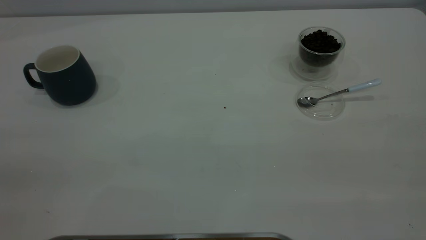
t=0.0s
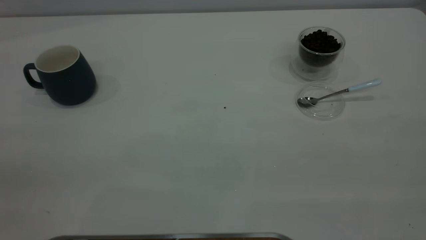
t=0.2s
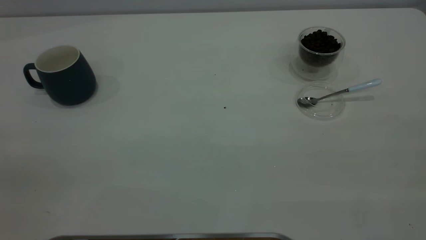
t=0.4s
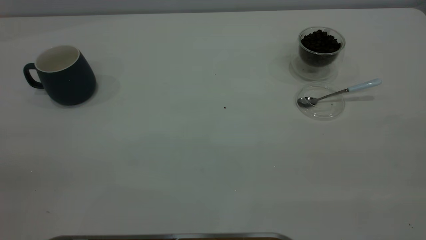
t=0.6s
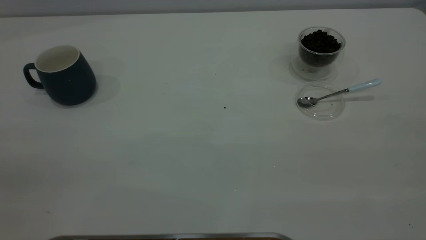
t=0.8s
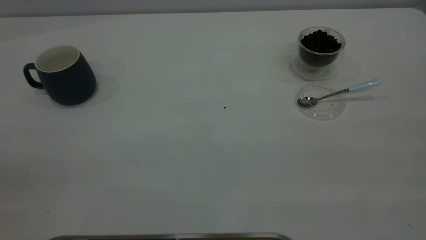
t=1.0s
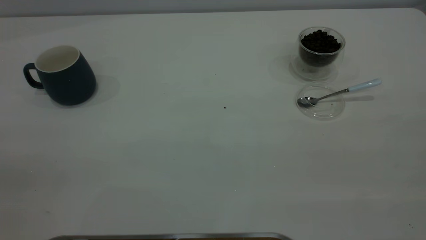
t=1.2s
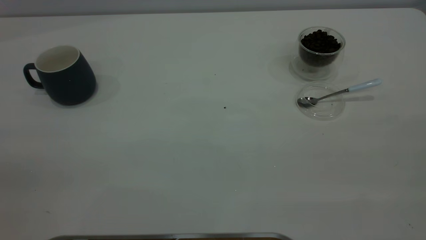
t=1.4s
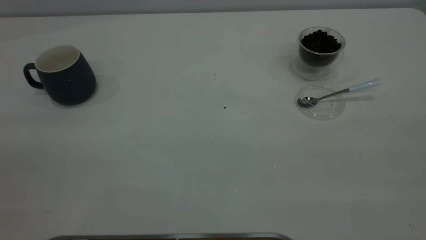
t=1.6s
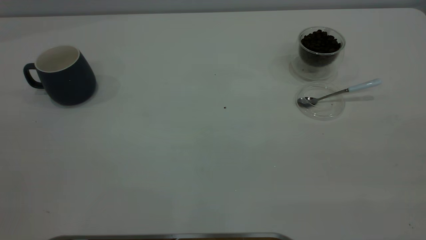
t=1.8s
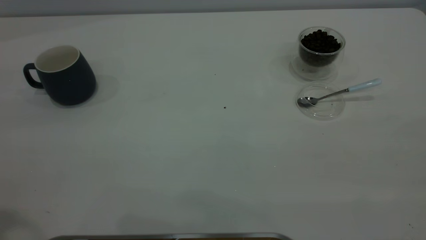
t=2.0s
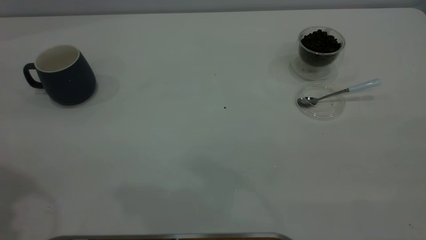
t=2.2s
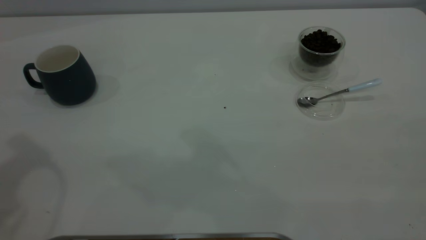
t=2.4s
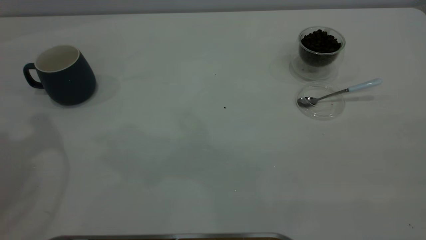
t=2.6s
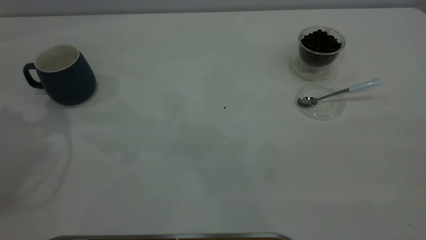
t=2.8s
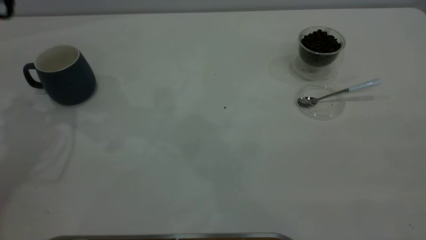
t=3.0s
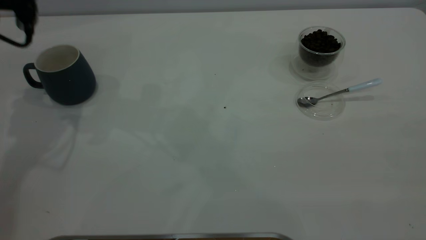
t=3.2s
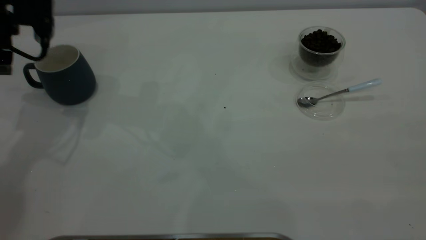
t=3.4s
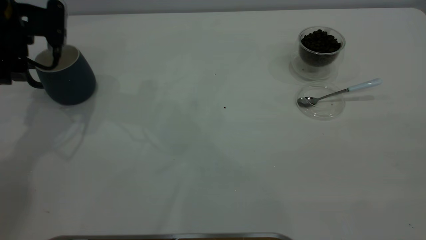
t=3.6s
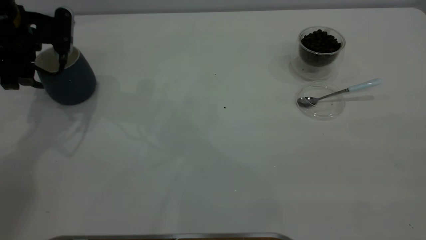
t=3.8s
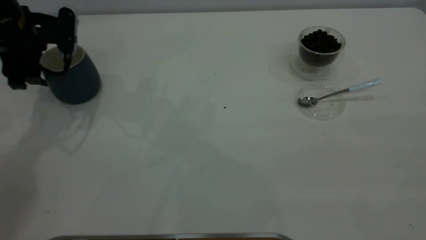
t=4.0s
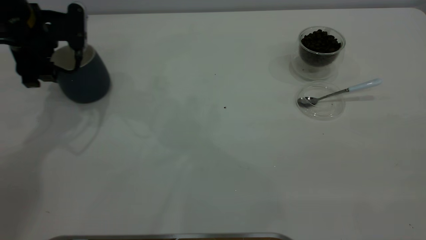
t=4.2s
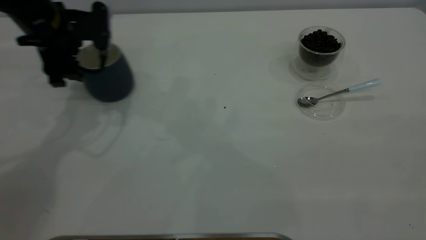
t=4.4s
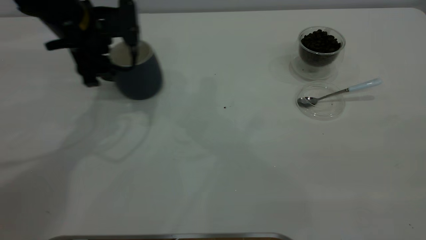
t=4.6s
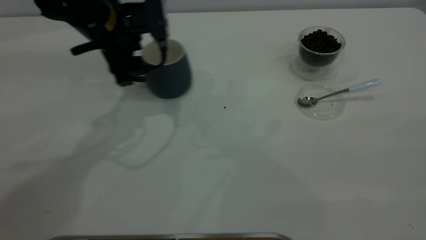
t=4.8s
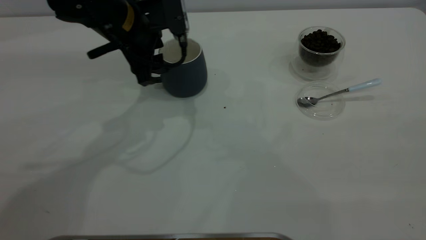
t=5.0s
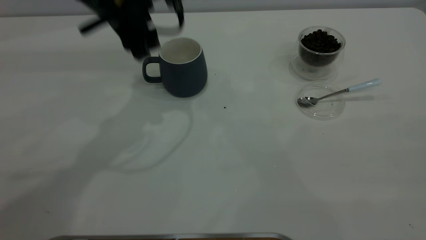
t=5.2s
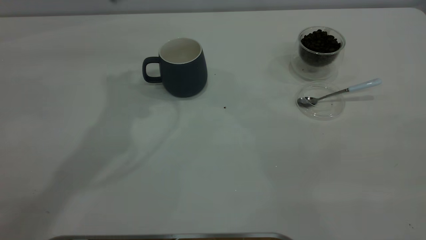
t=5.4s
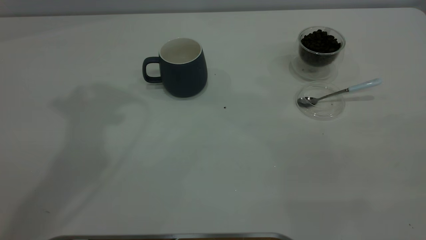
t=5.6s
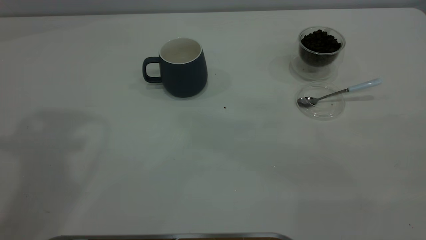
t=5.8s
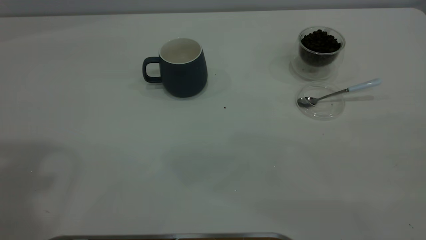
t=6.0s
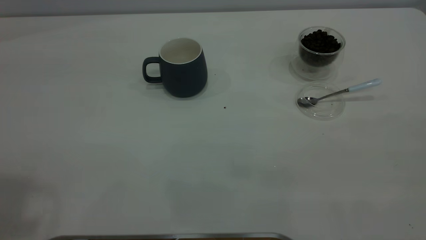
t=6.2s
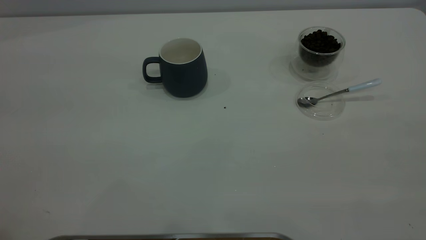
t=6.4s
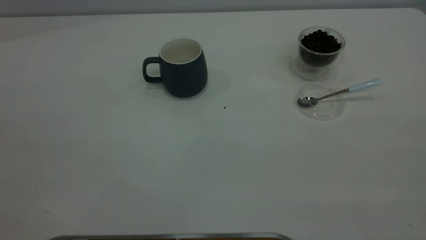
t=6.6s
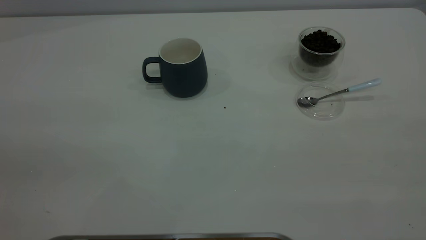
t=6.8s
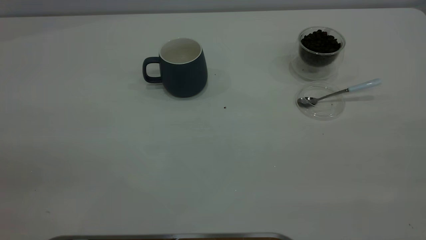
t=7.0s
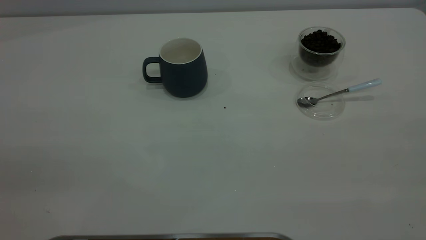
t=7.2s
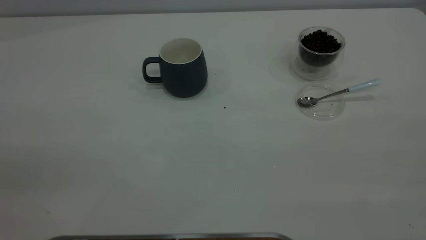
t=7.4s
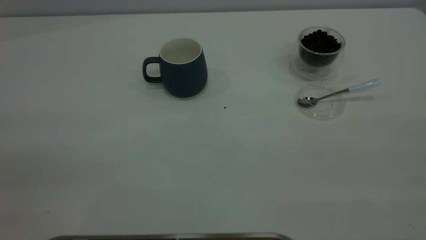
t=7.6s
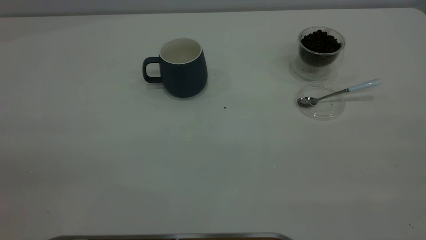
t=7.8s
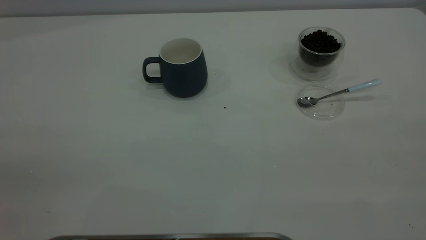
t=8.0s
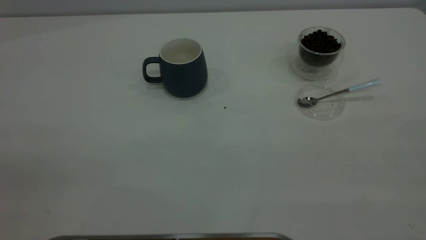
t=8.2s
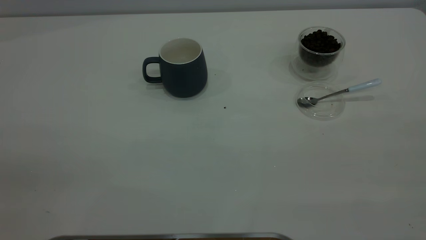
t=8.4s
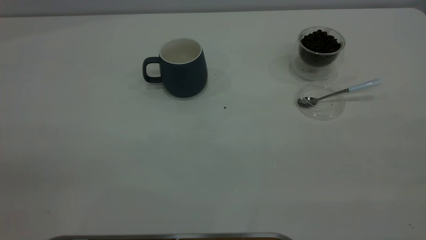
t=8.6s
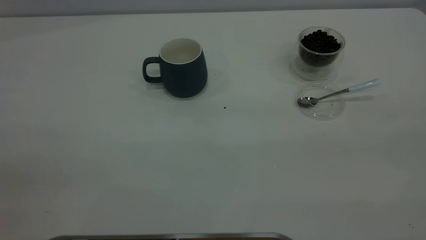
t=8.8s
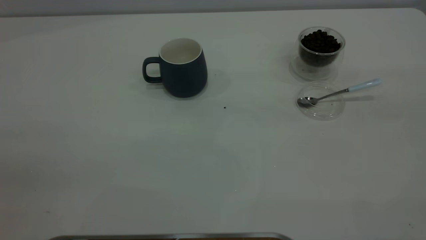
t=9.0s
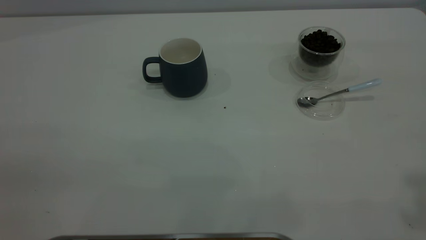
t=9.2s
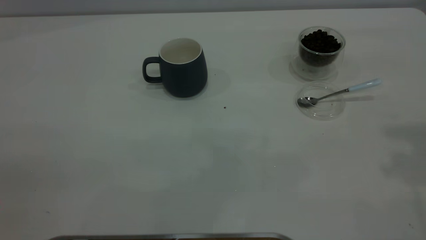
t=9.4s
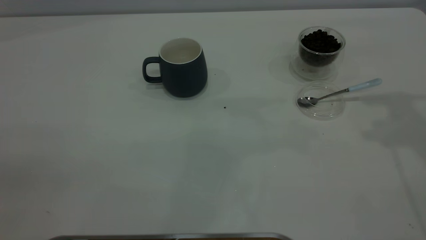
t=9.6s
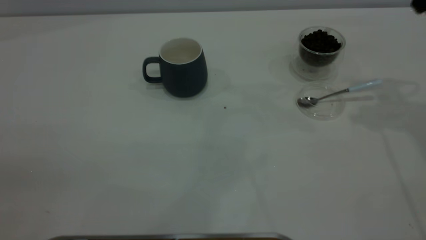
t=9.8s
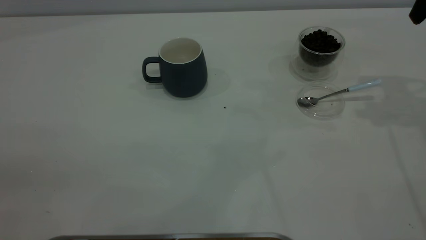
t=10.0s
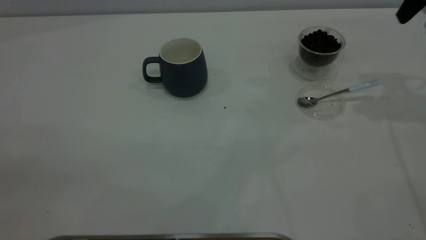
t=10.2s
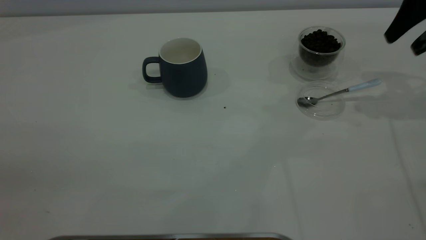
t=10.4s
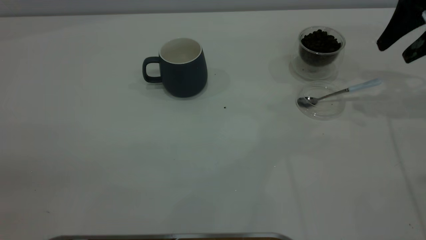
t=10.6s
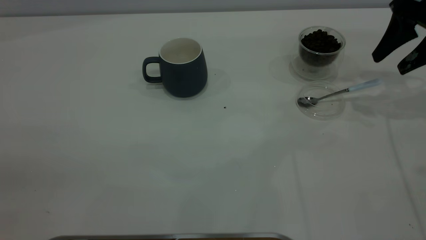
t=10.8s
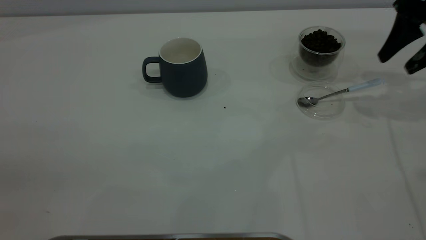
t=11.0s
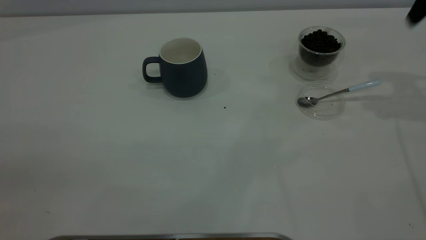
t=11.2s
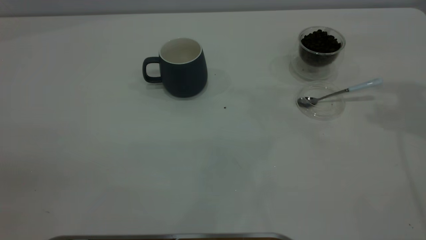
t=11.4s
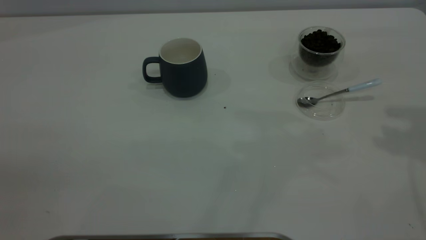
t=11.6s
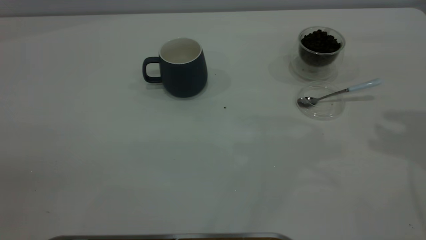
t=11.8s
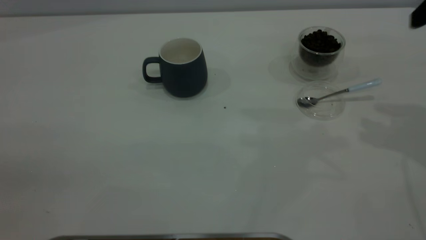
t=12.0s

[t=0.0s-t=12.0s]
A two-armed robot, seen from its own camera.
Task of the whole recording: the left gripper place the grey cup in the center of the table, the right gripper take the blue spoon from the cup lid and scoop out the coffee beans from the coffee cup and put them into the grey cup, the right gripper put the spoon back into the cup lid.
Step, t=0.0s to t=5.2s: Move the cup to the center of view.
t=3.0s to t=4.4s: The left gripper travels downward and to the right by roughly 15 cm.
t=4.4s to t=6.0s: The left gripper shifts approximately 35 cm upward and backward.
t=9.0s to t=10.4s: The right gripper shifts approximately 35 cm forward and downward.
t=10.4s to t=12.0s: The right gripper moves backward, about 10 cm, and travels upward and back again, some 10 cm each way.

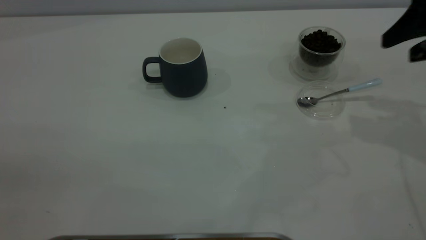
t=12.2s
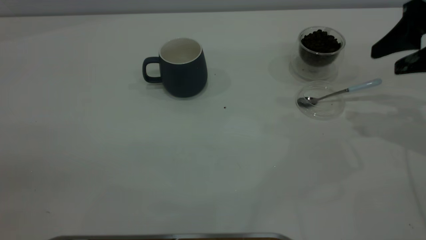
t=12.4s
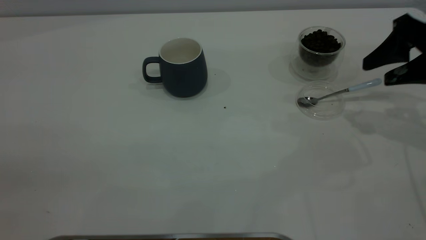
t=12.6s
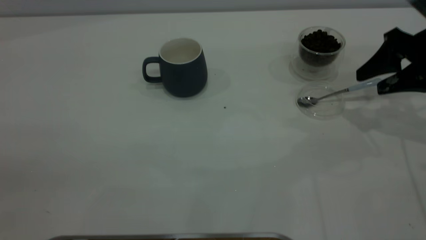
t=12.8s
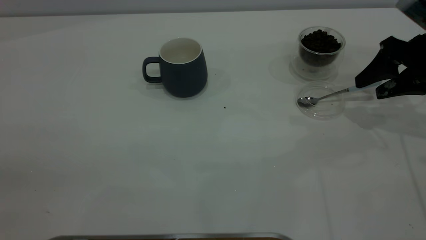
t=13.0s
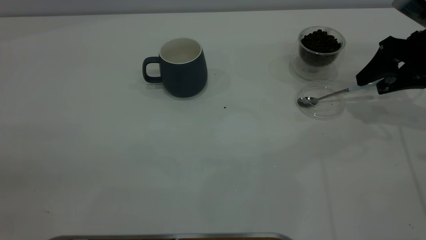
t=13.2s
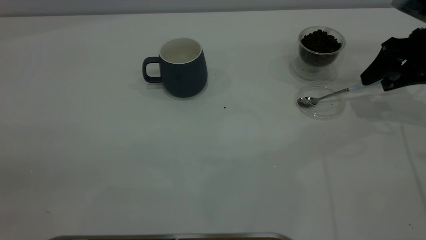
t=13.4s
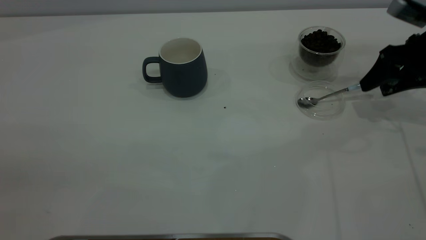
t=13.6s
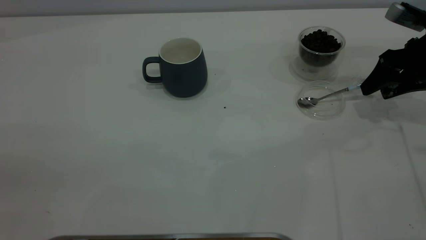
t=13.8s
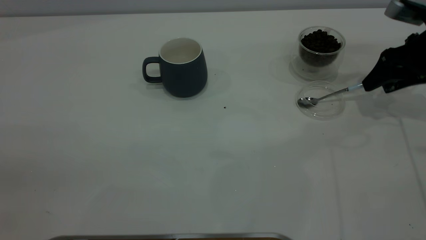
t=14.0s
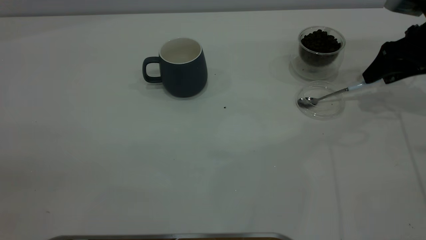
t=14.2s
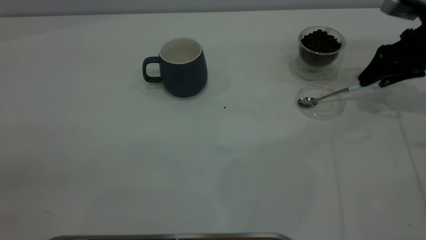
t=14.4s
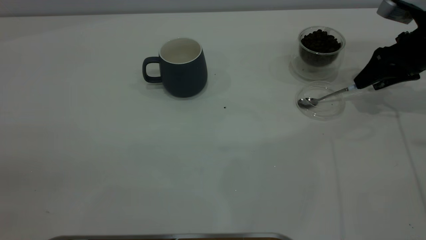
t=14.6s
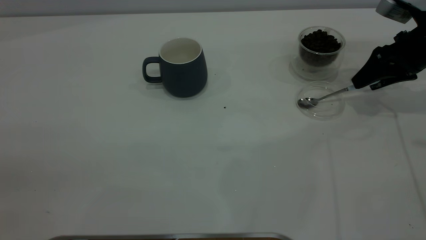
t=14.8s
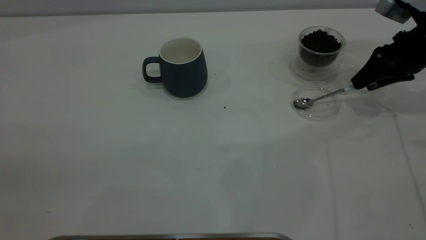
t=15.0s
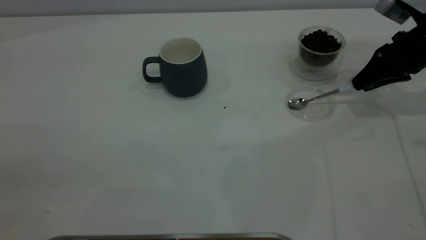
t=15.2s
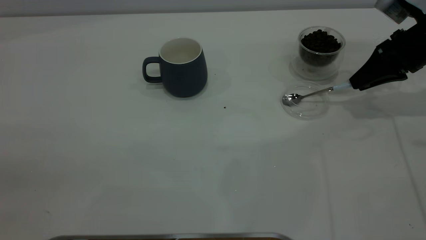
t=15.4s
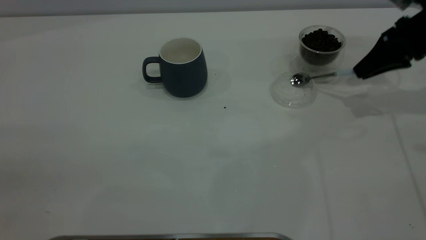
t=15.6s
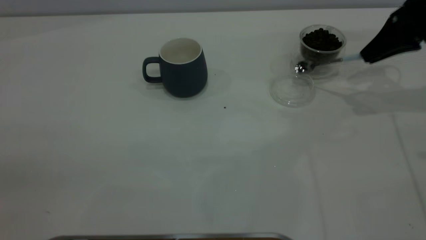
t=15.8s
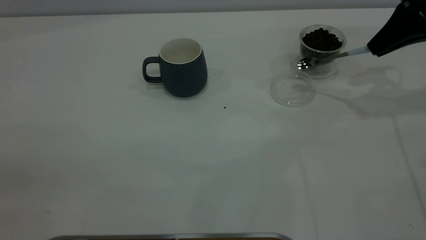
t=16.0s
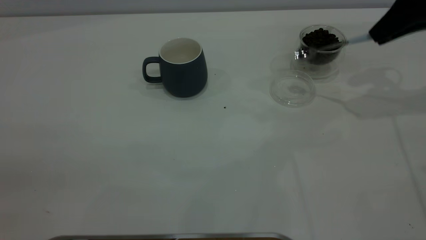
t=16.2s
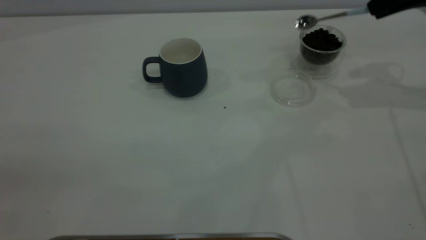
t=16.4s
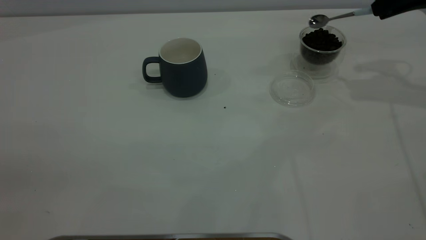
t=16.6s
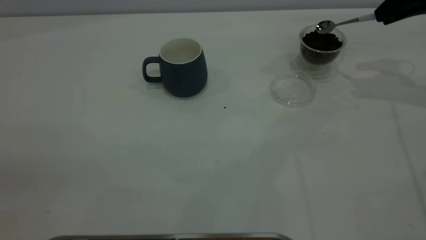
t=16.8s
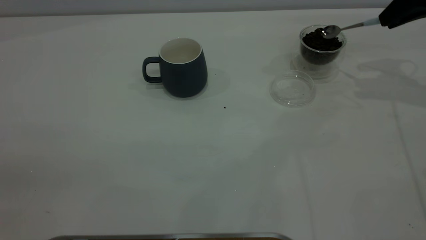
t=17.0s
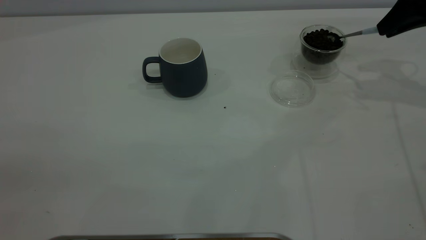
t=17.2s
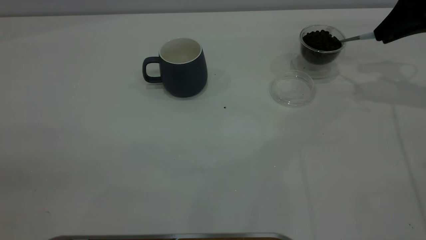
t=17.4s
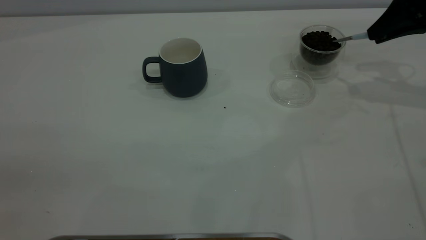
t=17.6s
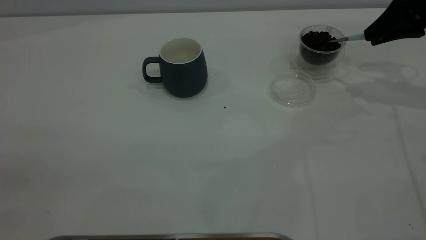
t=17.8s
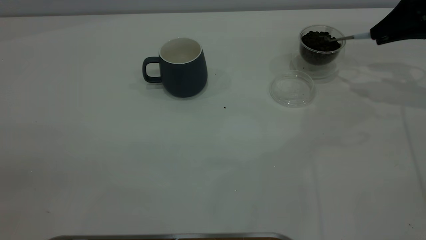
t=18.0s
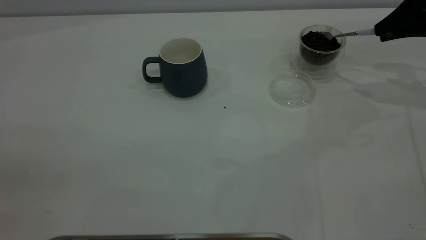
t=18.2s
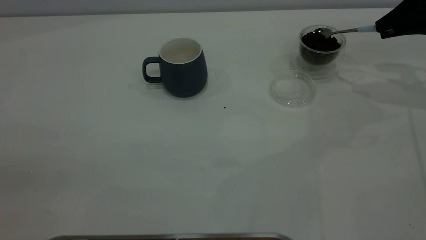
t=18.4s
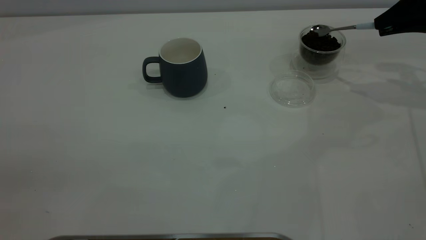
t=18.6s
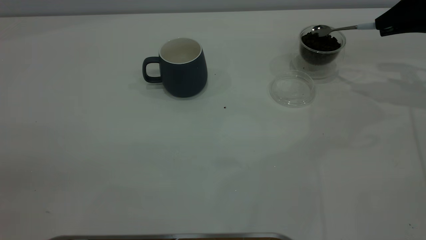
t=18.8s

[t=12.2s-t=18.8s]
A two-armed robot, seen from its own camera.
Task of the whole recording: the left gripper place the grey cup in the center of the table, the right gripper take the blue spoon from the cup lid and scoop out the coffee beans from the coffee cup and put them into the grey cup, the right gripper put the spoon back into the cup lid.
Step, t=12.2s to t=15.8s: Pick up the spoon.
t=12.2s to t=13.8s: The right gripper travels downward and forward by about 15 cm.
t=13.8s to t=15.4s: The right gripper closes its fingers.
t=15.4s to t=17.2s: The right gripper travels upward by roughly 10 cm.
